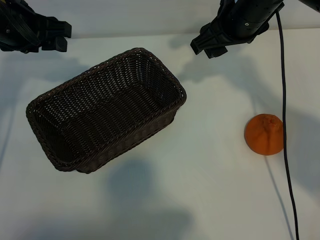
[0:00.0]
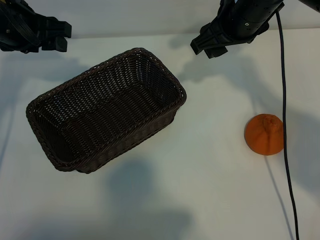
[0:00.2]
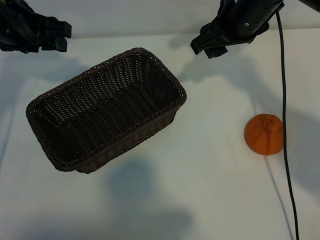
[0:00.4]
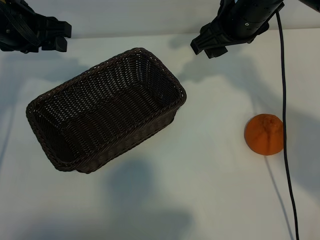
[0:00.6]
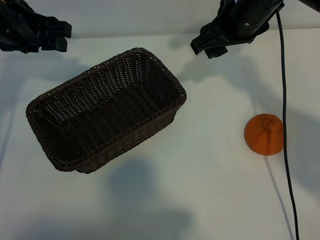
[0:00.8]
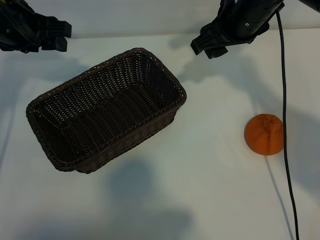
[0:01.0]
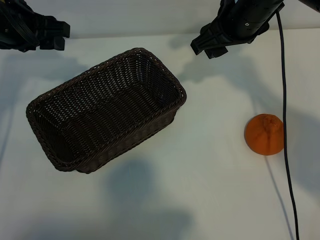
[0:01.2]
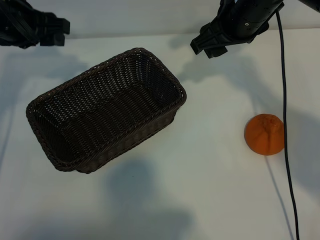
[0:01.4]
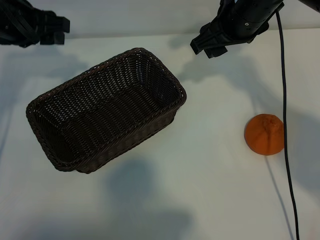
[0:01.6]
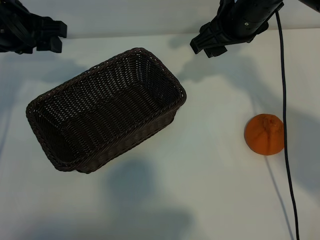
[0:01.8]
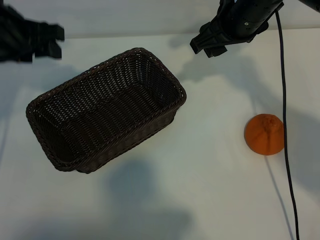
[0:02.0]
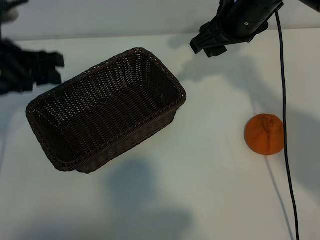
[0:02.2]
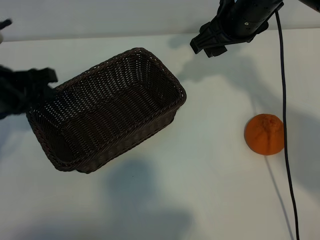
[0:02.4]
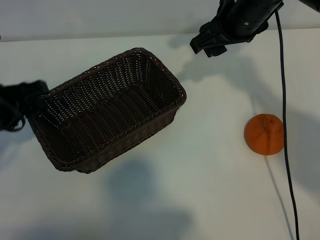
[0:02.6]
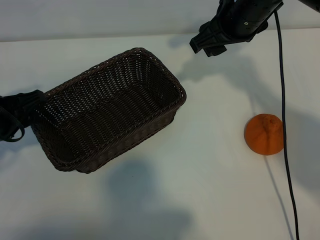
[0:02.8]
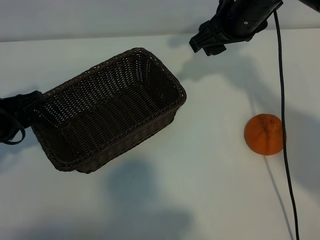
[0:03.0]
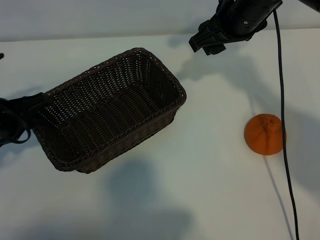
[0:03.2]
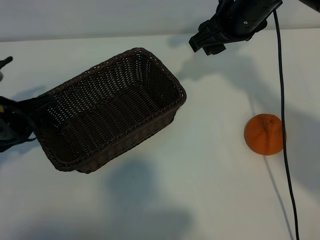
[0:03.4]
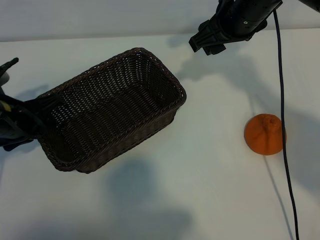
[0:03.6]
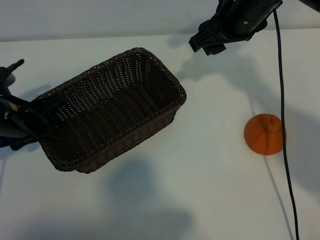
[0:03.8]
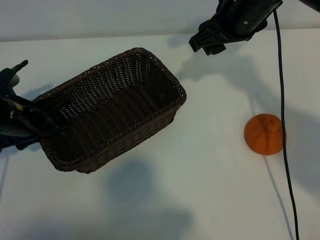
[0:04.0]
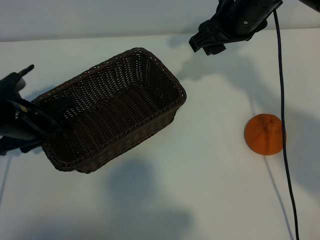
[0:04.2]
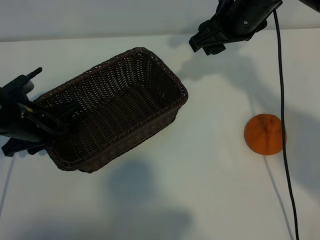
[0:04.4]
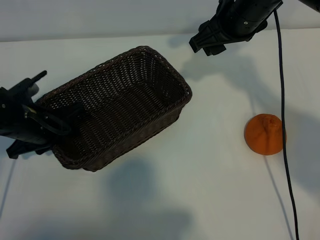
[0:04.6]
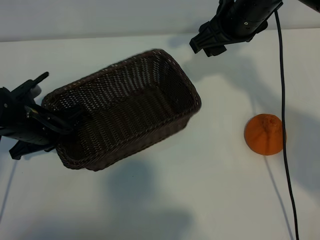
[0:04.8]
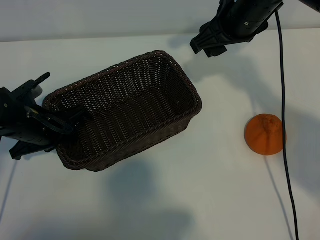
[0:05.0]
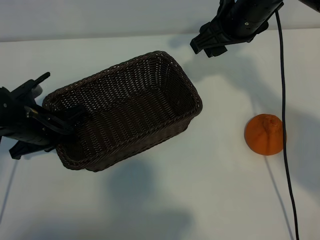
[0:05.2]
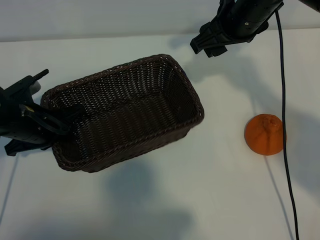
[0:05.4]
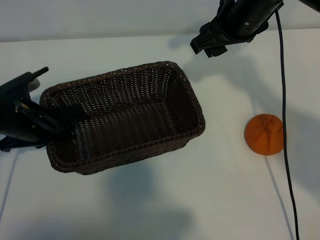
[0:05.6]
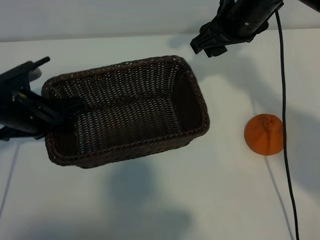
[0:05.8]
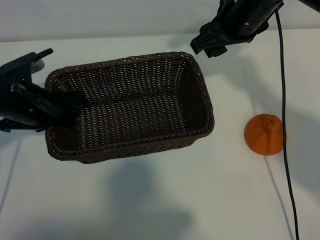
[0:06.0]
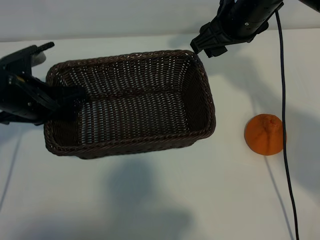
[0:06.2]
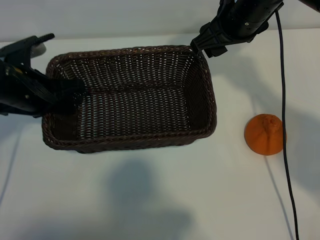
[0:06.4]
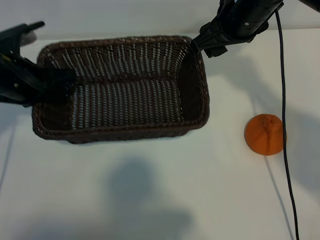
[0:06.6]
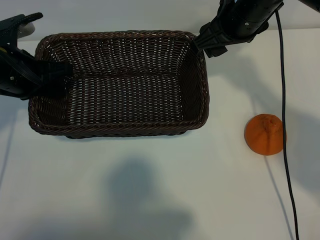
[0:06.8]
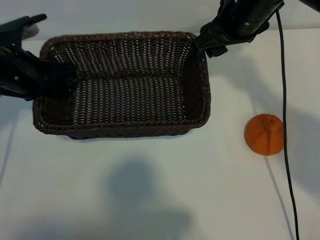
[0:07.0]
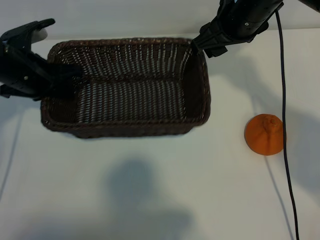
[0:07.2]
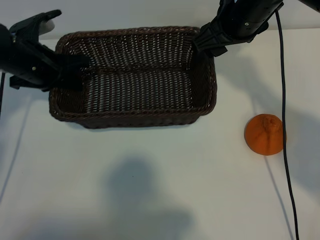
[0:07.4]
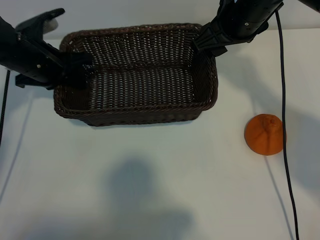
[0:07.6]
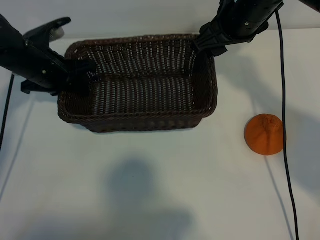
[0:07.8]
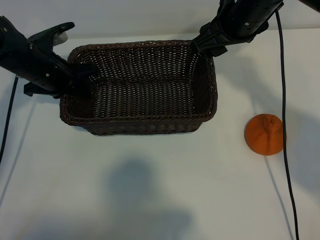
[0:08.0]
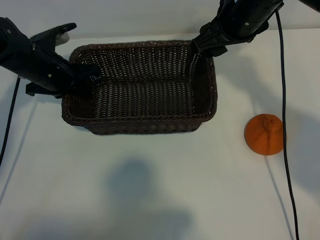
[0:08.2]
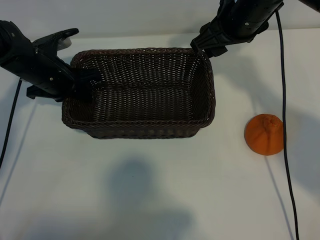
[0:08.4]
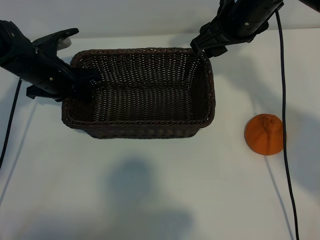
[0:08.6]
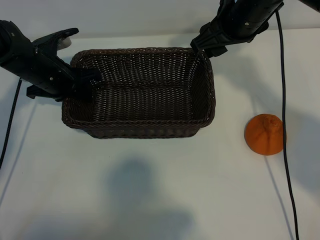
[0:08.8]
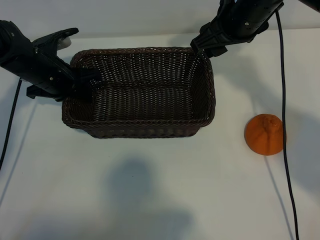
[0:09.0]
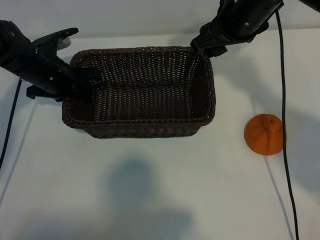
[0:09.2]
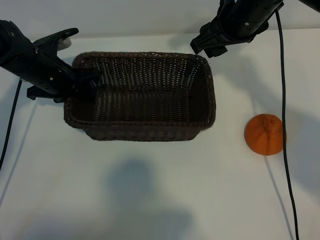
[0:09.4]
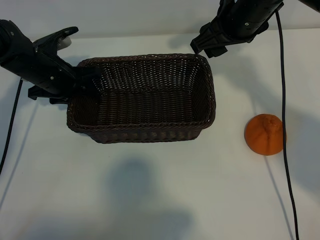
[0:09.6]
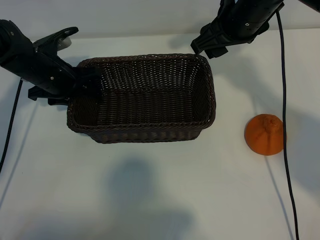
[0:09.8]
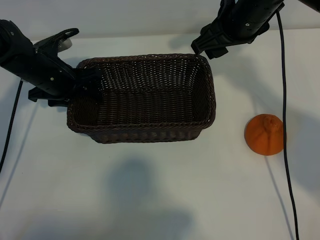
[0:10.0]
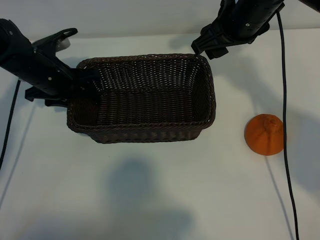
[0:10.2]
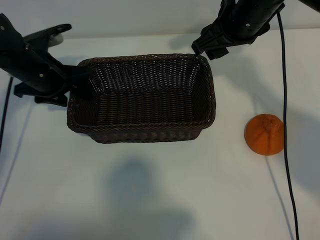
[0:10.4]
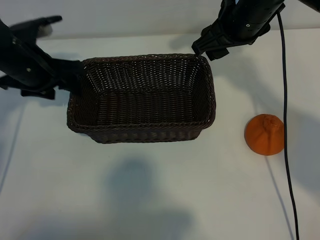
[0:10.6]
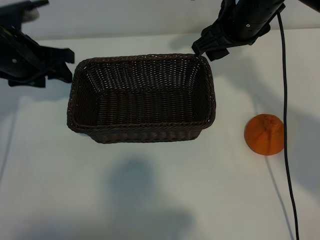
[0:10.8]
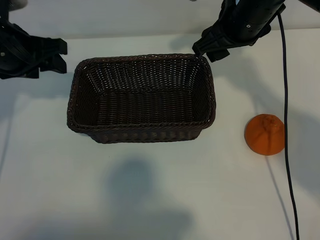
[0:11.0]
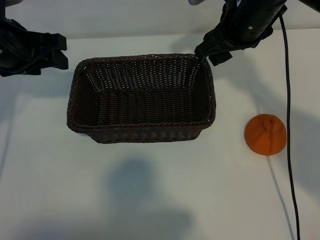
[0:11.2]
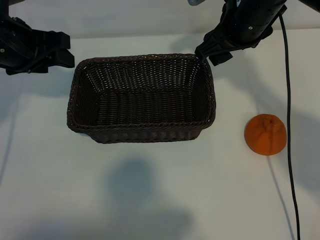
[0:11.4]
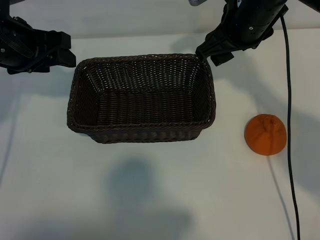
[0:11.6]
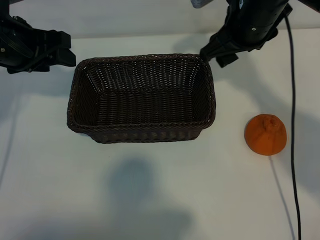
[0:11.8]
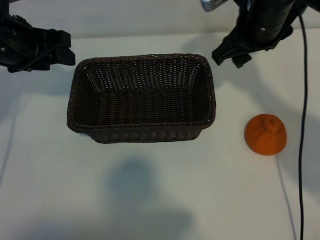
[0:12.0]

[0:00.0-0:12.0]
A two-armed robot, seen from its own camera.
Task of the whole recording: pick up the orange and put it into the basket.
Step, 0:01.2 to 0:04.8: Grasp the basket with left gripper.
Step, 0:05.0 to 0:09.4: Place the basket in the center of view with left gripper.

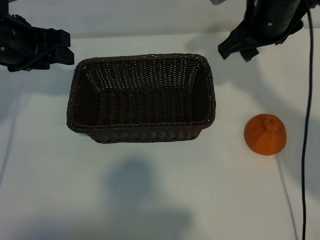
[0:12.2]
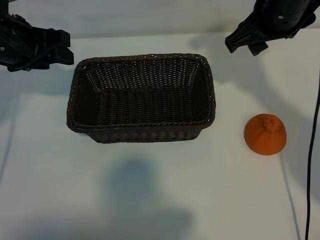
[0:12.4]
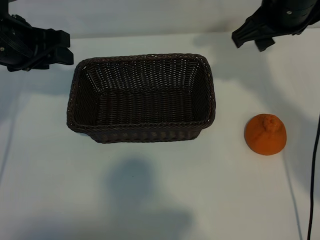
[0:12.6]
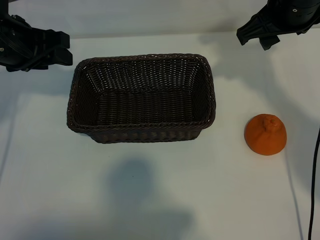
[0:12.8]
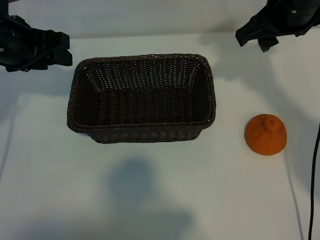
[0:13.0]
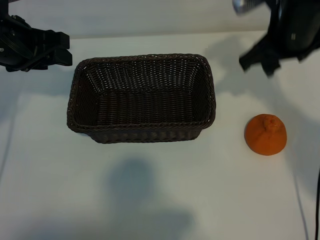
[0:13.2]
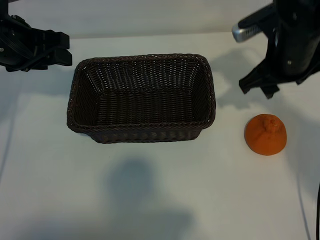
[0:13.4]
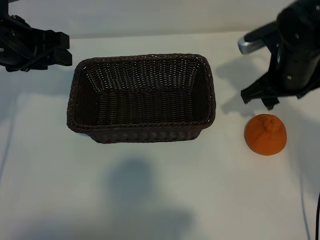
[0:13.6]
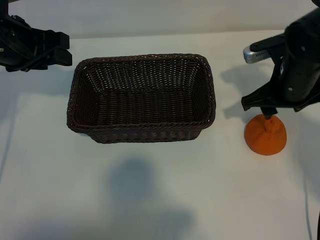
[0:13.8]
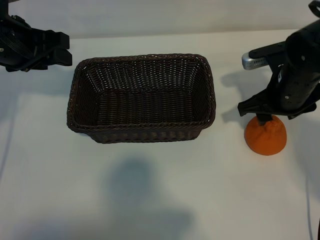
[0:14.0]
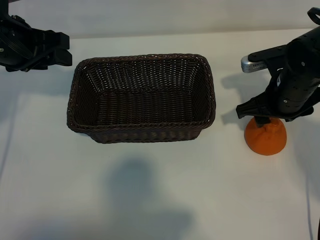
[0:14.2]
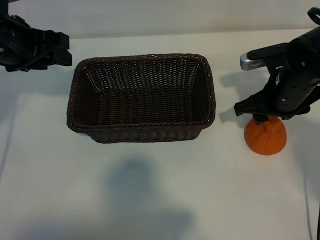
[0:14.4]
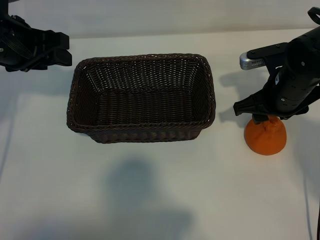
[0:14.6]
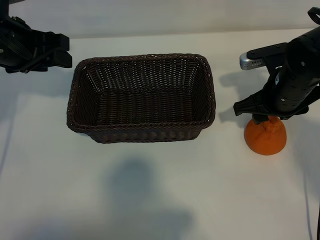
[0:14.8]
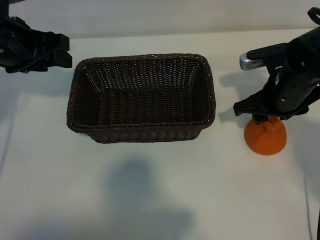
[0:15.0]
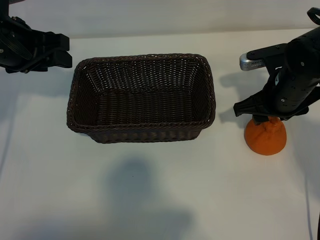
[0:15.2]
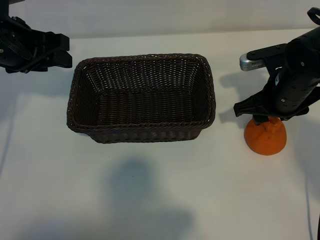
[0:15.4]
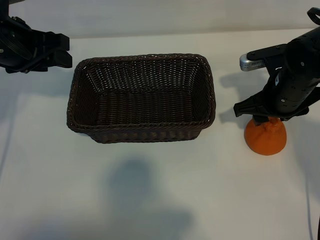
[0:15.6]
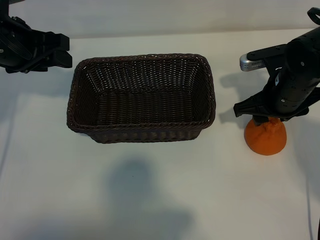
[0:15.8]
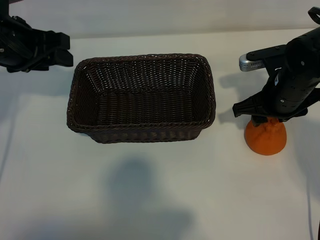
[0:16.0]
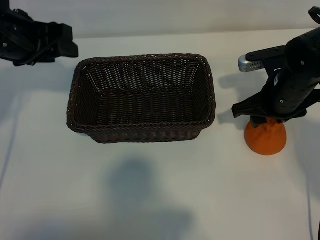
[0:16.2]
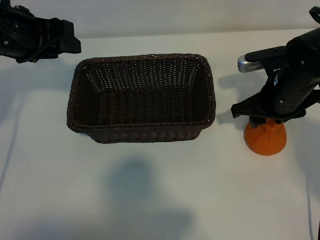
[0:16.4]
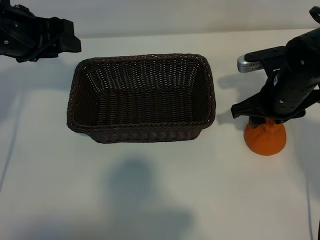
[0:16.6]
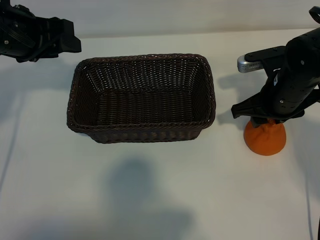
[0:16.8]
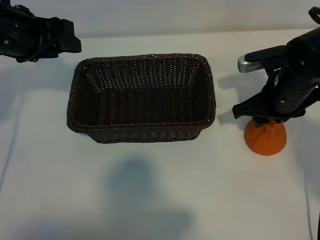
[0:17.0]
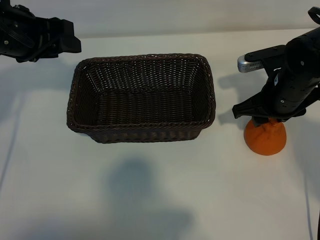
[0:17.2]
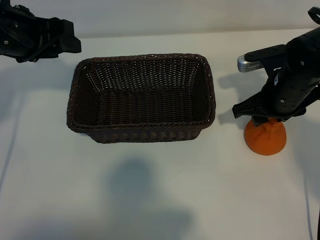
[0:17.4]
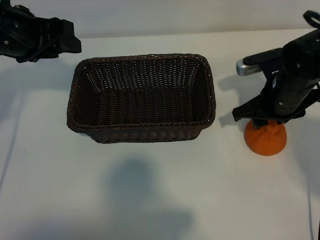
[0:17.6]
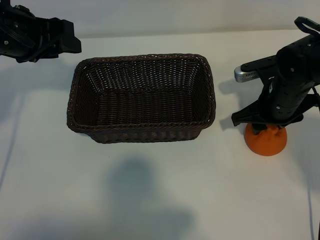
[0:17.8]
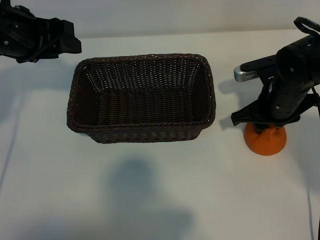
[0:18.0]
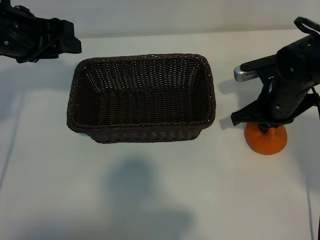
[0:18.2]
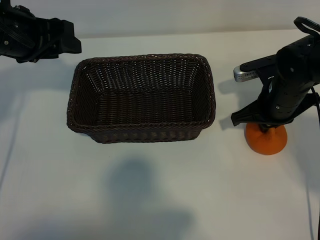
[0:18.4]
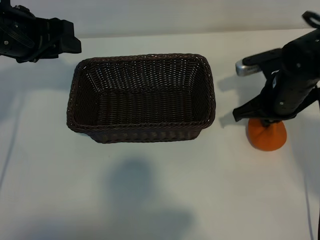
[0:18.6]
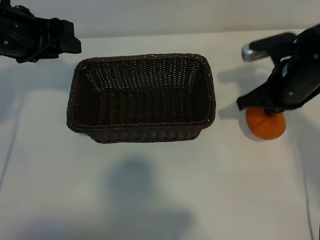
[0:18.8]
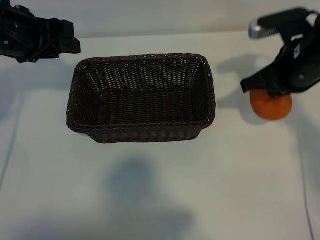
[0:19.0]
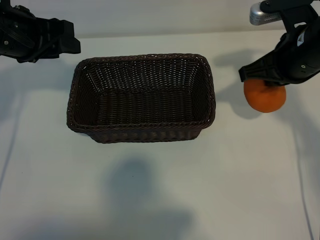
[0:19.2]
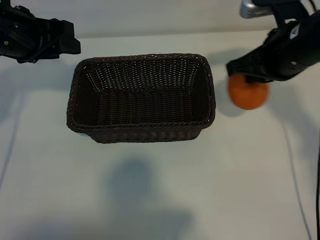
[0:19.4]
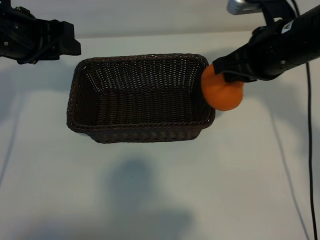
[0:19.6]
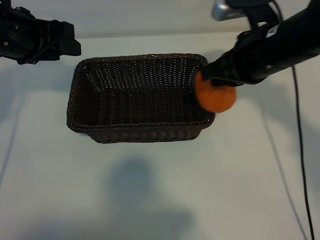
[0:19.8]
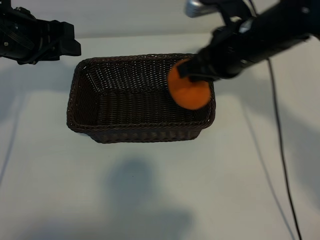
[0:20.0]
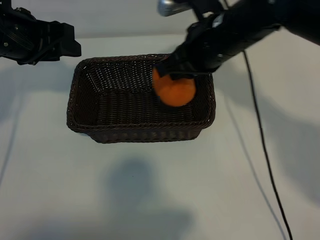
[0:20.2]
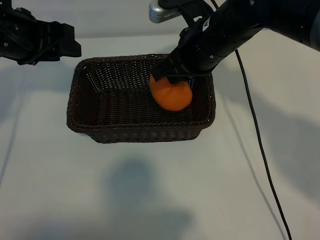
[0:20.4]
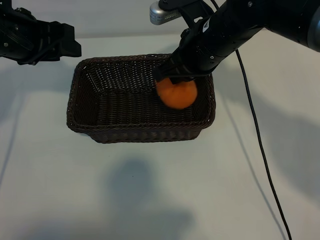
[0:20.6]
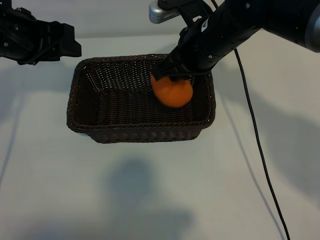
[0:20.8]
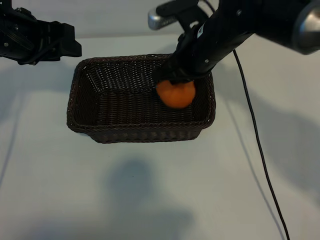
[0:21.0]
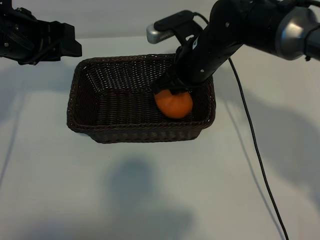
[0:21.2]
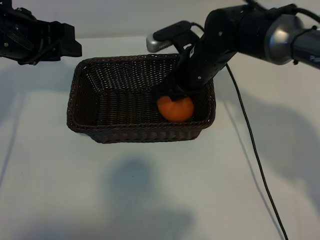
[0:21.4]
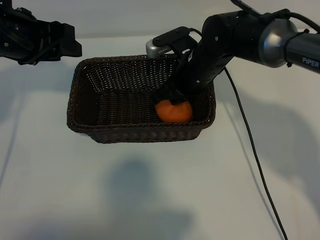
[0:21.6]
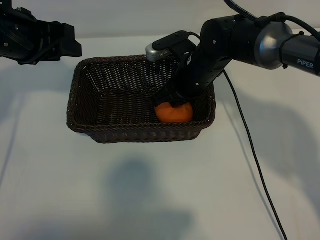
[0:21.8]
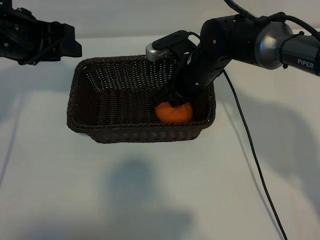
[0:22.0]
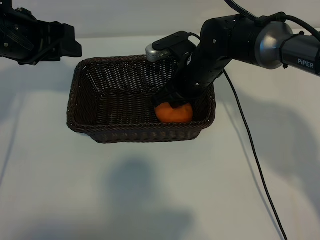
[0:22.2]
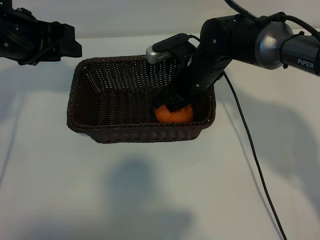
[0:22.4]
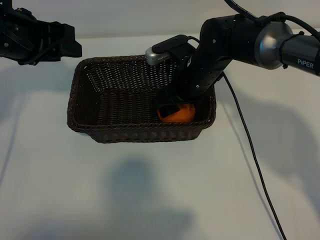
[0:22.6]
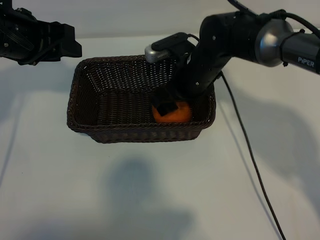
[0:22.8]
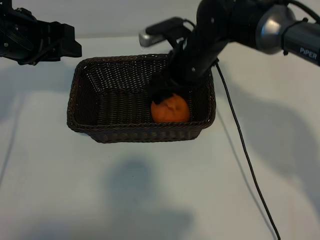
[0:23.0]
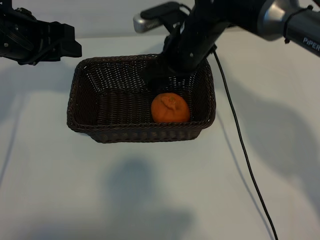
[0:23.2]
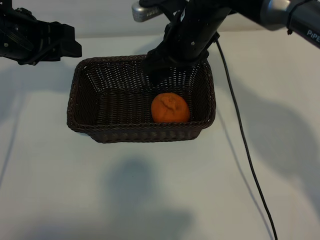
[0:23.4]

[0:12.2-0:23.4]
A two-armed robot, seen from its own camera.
Task of the whole recording: pick up the orange and put it into the basket.
Step, 0:12.2 to 0:18.0: Grasp the orange with right gripper.
Step, 0:18.4 to 0:22.8: Place the orange in the basket with right gripper.
